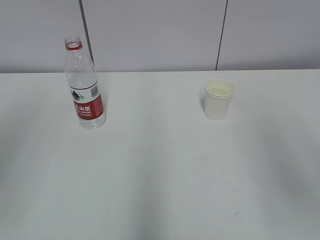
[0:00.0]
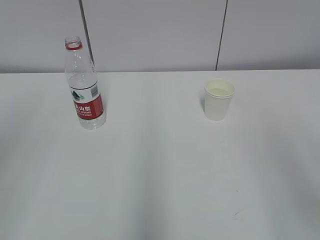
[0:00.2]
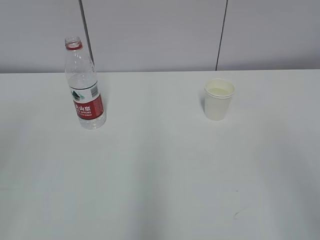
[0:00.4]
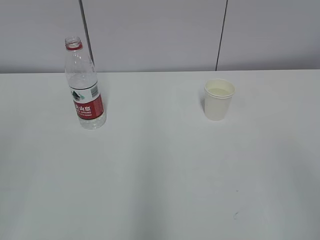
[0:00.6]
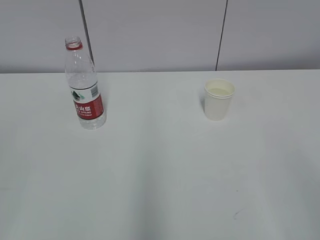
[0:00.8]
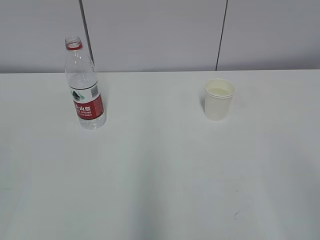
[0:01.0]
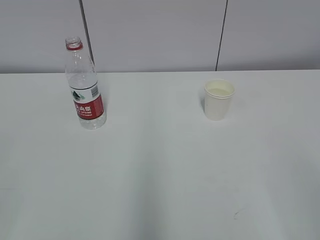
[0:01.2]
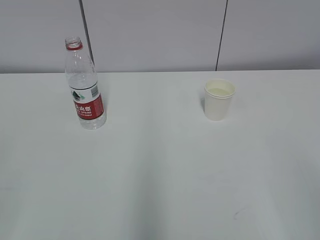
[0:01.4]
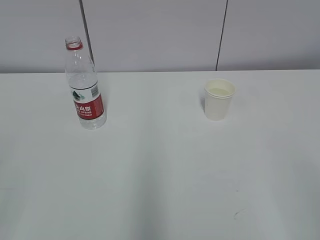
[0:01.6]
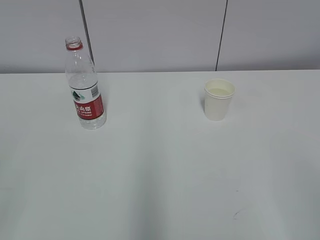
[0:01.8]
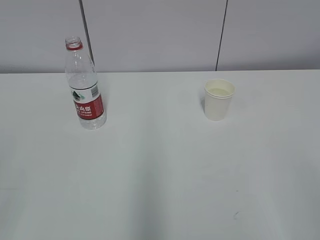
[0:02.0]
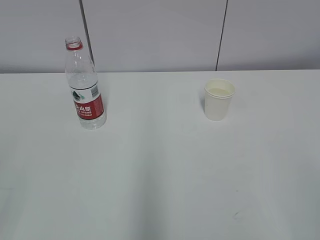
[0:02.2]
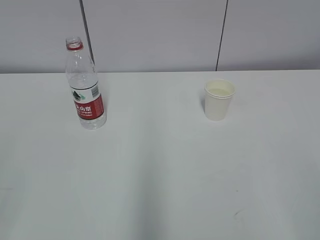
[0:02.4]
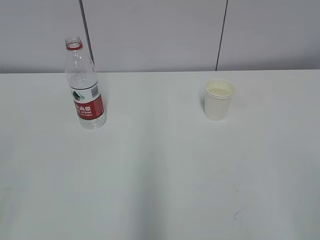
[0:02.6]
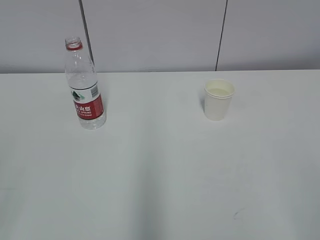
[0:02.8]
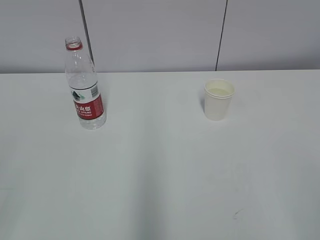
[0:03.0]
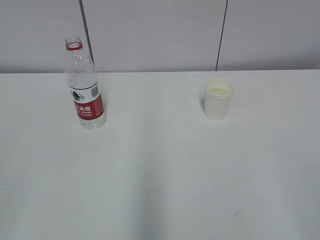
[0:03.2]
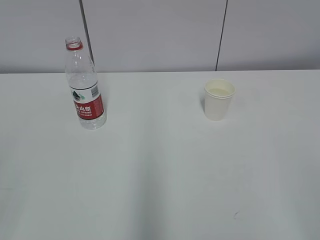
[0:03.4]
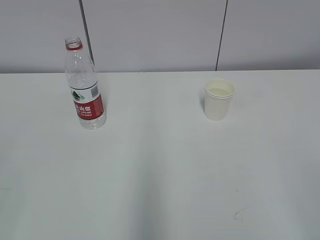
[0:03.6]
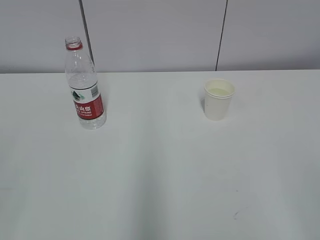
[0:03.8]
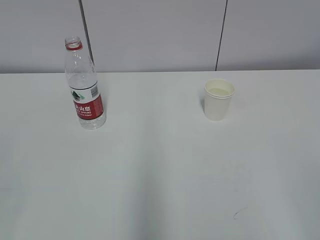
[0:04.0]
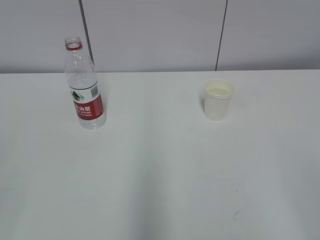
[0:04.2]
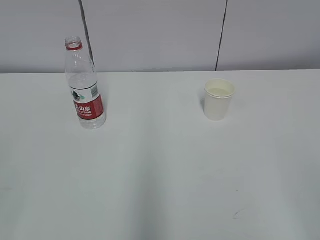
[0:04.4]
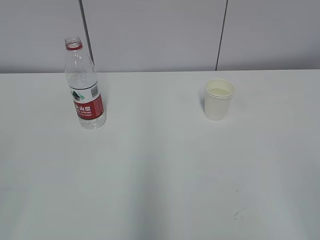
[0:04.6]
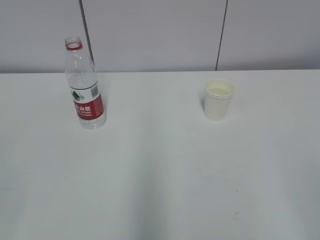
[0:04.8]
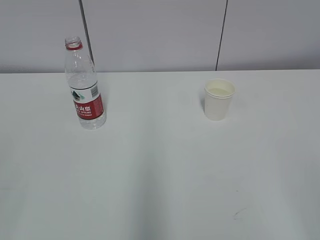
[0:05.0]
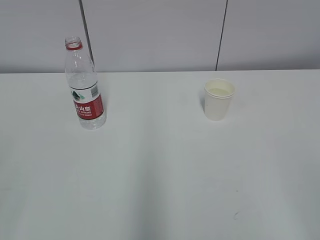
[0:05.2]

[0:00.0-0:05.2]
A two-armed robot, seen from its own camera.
0:03.4 to 0:05.2: Both grippers stay about where they are.

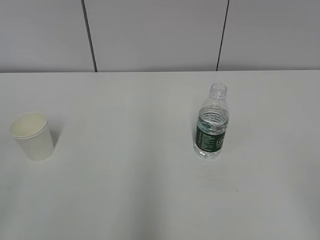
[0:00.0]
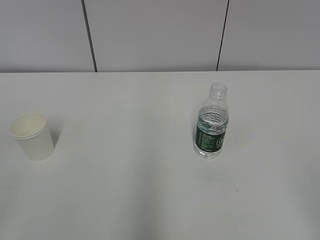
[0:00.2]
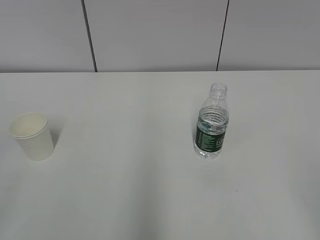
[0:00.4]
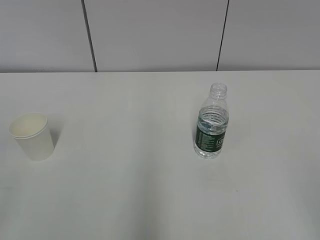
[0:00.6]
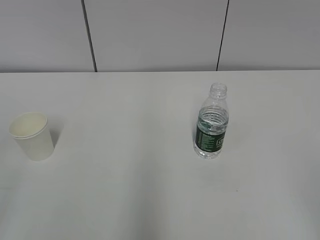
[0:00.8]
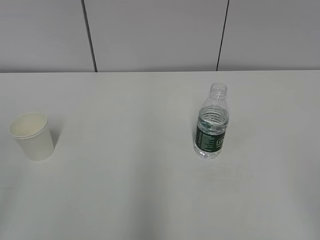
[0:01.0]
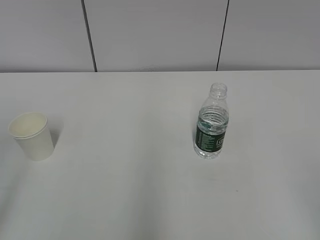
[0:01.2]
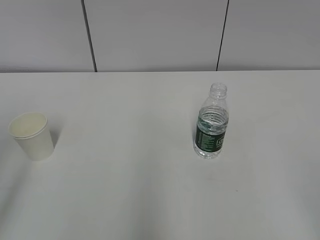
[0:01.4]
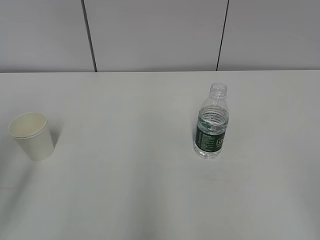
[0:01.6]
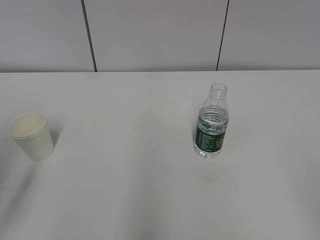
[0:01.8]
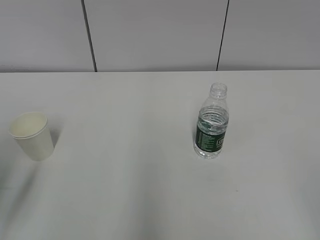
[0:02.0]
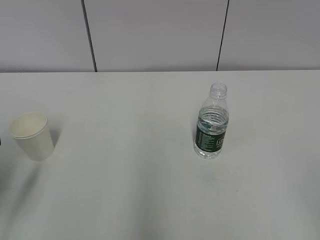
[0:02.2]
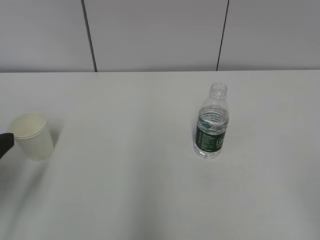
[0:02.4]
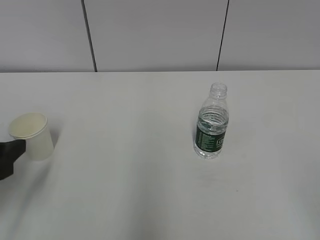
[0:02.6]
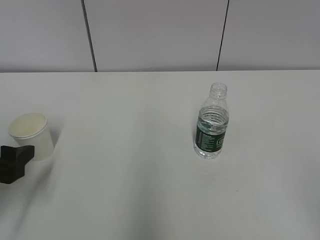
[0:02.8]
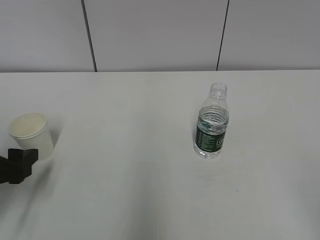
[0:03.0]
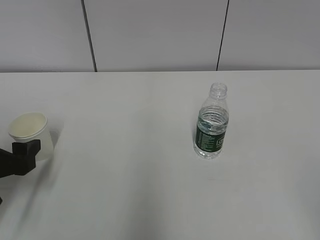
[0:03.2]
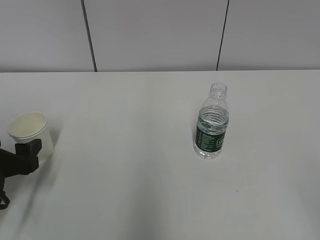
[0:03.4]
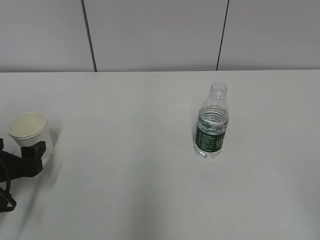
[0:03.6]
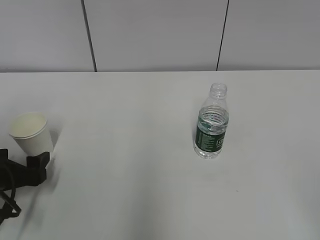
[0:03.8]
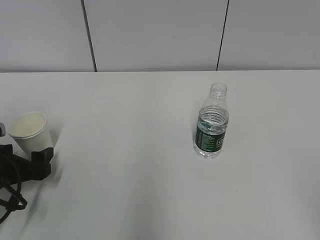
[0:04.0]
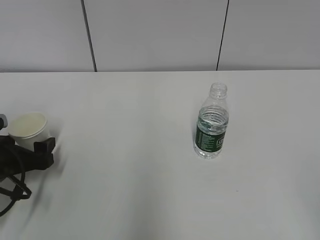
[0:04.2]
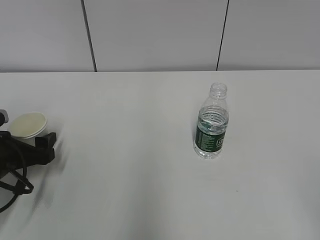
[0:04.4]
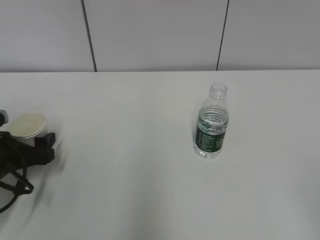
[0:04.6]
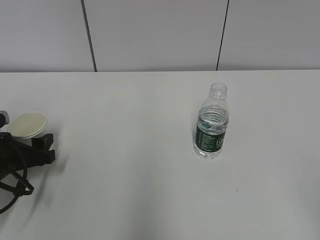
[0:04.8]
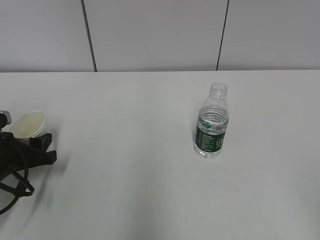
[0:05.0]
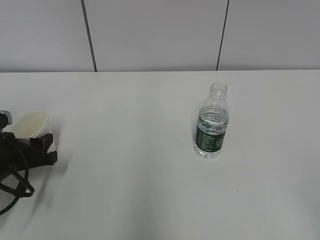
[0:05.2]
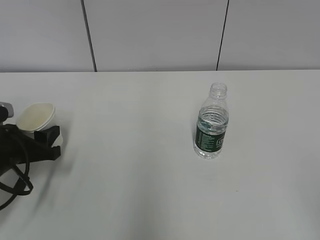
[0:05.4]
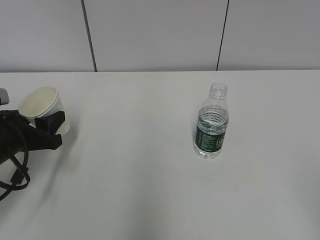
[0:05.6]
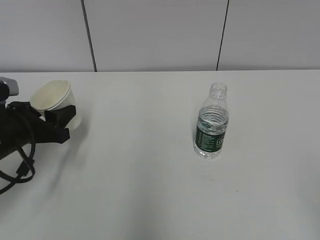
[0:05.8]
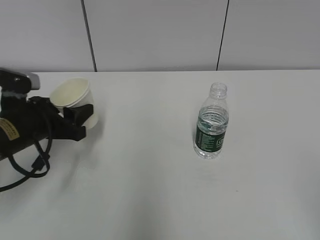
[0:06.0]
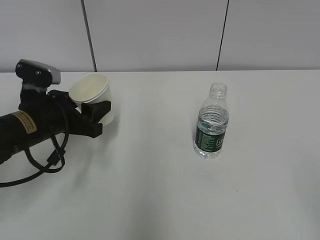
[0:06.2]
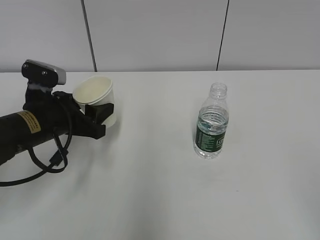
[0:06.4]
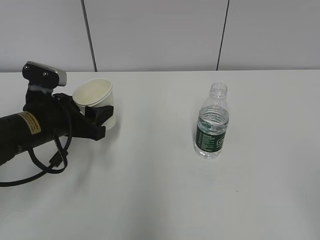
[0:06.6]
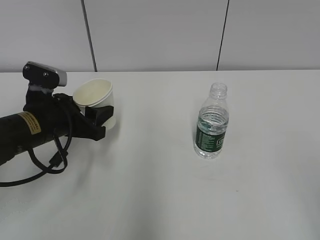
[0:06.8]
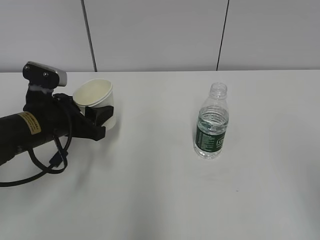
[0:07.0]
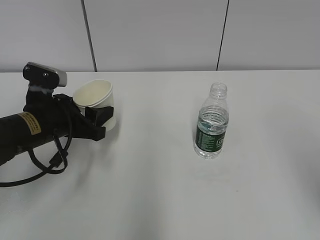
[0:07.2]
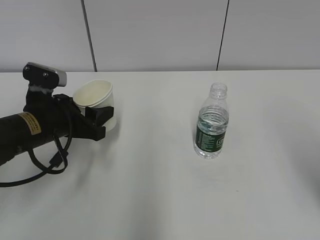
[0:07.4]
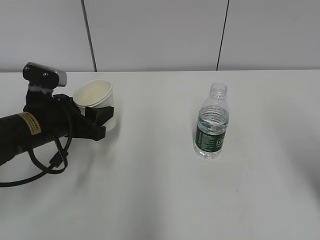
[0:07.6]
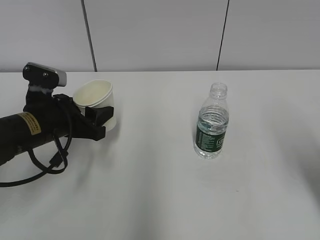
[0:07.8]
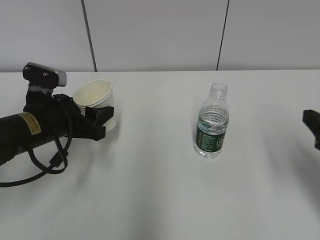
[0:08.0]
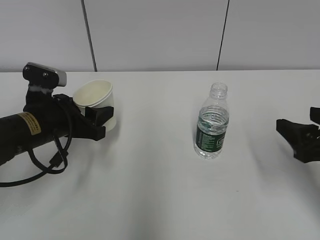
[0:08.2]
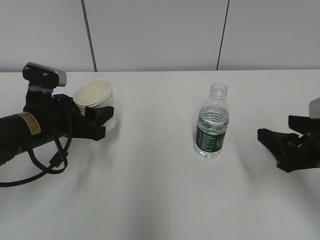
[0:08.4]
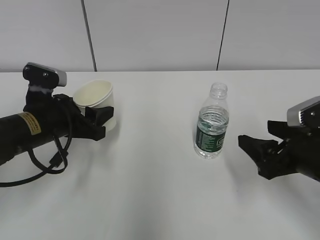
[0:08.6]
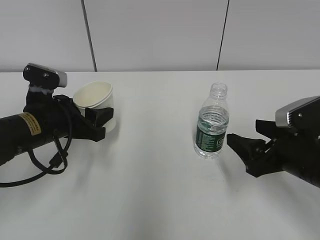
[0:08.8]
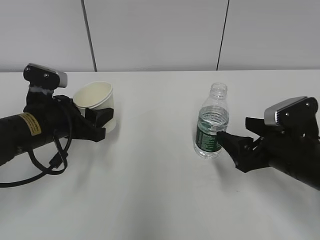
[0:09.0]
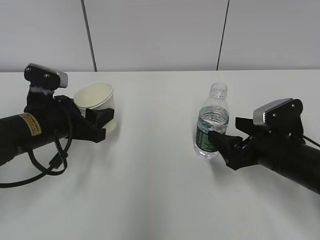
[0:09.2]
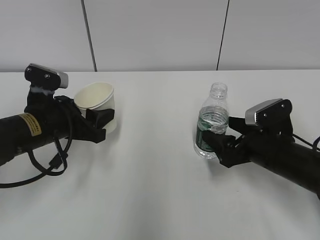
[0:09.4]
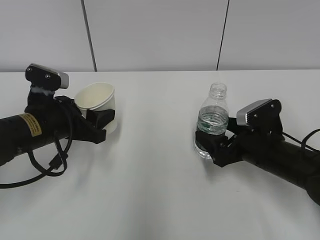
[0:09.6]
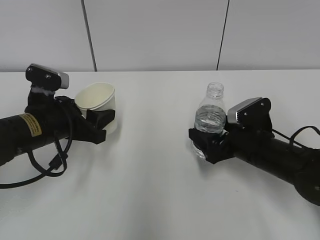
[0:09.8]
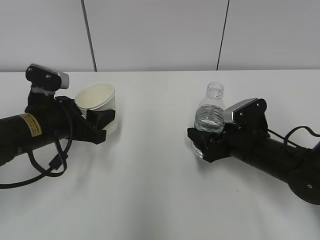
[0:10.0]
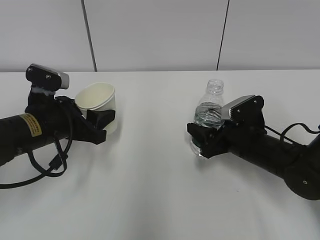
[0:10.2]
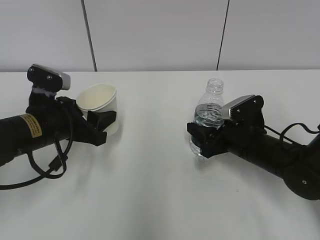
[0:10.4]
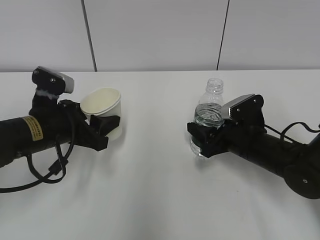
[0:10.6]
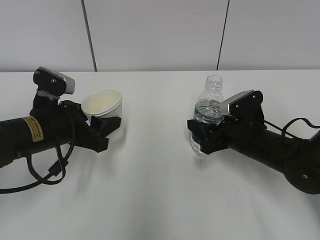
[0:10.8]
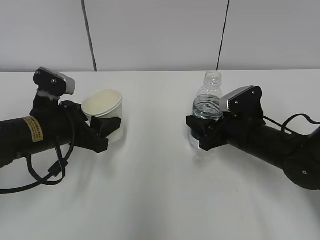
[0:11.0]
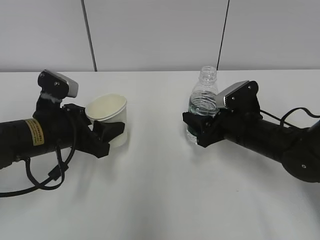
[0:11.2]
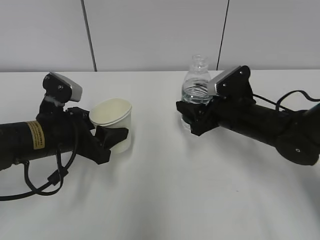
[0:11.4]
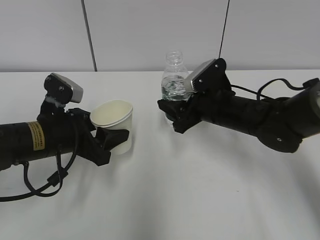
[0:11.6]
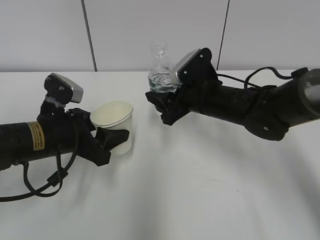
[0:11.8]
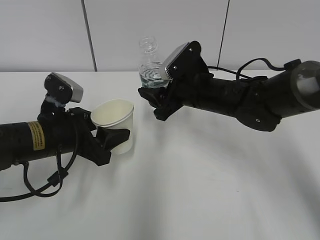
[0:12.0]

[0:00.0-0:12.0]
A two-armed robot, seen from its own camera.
Step, 0:00.0 to 0:04.0: Grab the paper cup with the left hand.
Step, 0:04.2 to 0:08.6: Grab the water bottle with the right hand.
0:01.6 to 0:03.0: The left gripper shifts about 20 cm downward and forward.
0:03.0 to 0:04.4: The left gripper travels forward and downward by some 10 cm.
0:04.4 to 0:06.0: The left gripper is displaced upward and to the right by some 10 cm, and closes up.
0:06.0 to 0:07.6: The right gripper shifts some 15 cm forward.
0:07.6 to 0:09.0: The right gripper moves downward, forward and to the left, about 20 cm.
0:09.0 to 0:10.4: The right gripper moves forward and downward, about 10 cm, and closes its fingers.
0:10.4 to 0:12.0: The right gripper travels upward, to the left and forward by about 15 cm.

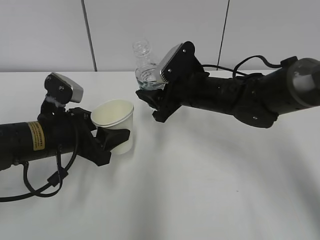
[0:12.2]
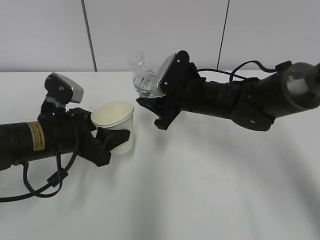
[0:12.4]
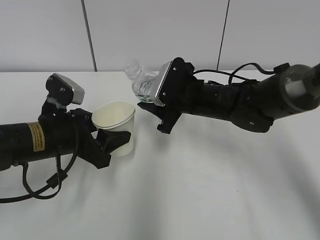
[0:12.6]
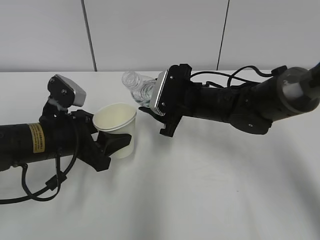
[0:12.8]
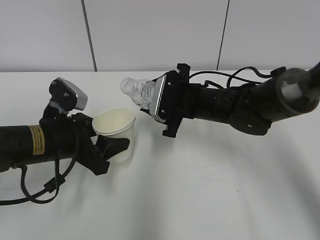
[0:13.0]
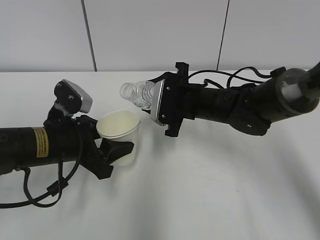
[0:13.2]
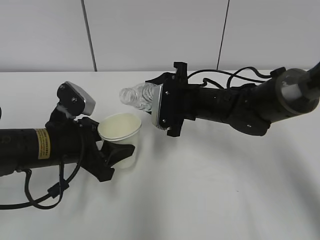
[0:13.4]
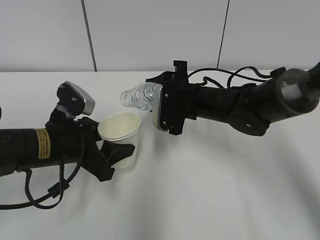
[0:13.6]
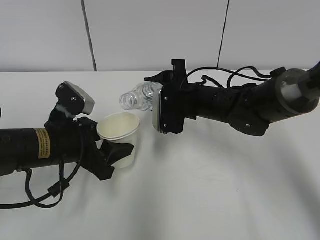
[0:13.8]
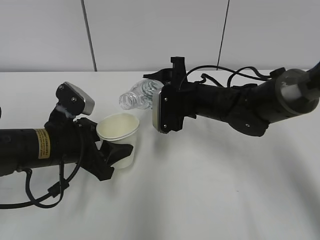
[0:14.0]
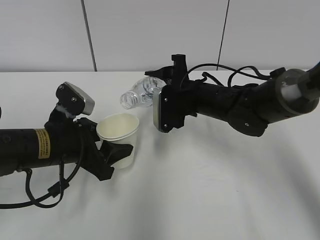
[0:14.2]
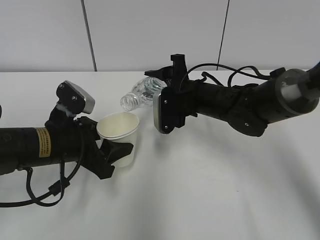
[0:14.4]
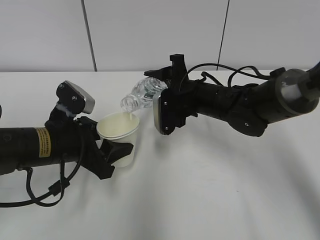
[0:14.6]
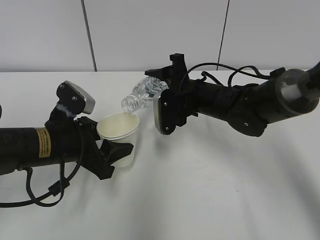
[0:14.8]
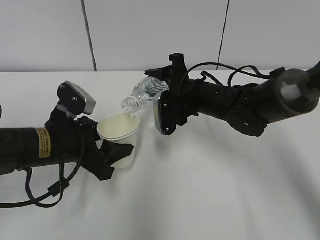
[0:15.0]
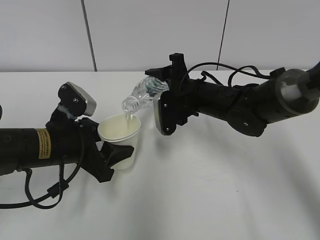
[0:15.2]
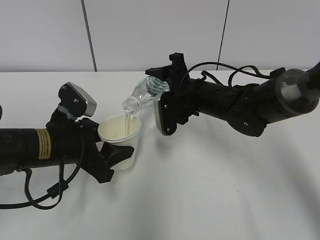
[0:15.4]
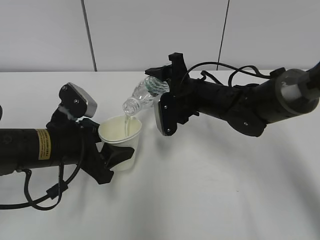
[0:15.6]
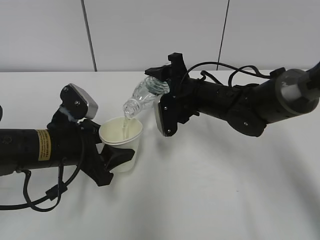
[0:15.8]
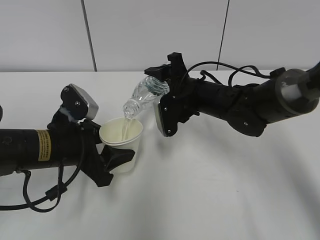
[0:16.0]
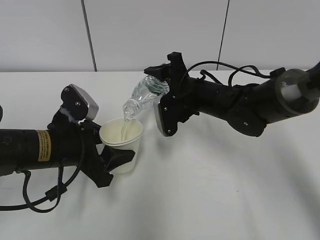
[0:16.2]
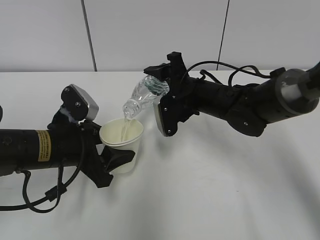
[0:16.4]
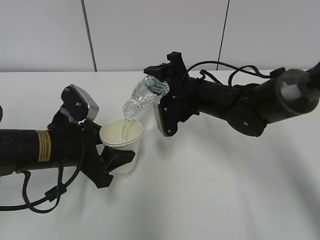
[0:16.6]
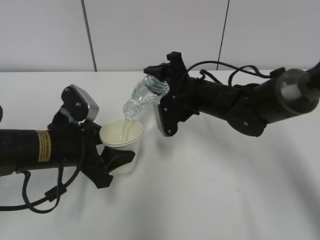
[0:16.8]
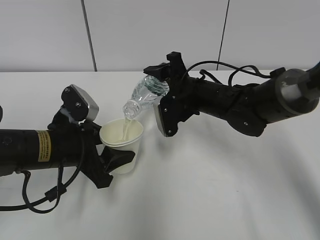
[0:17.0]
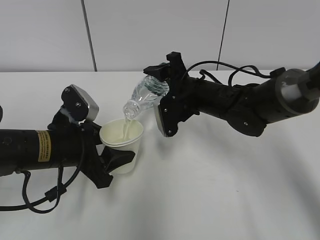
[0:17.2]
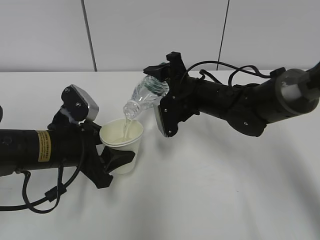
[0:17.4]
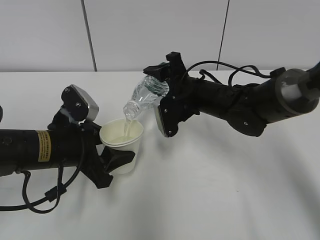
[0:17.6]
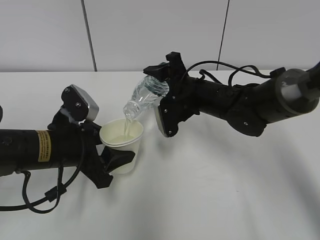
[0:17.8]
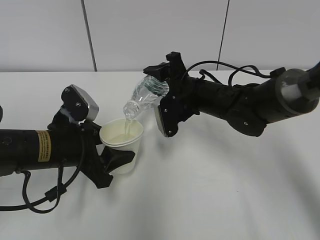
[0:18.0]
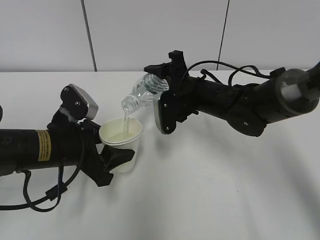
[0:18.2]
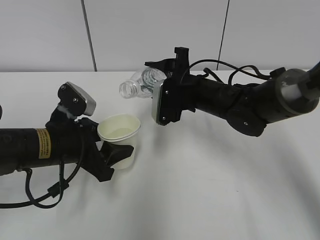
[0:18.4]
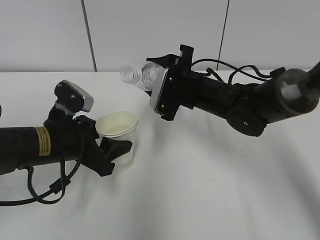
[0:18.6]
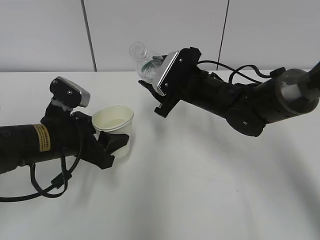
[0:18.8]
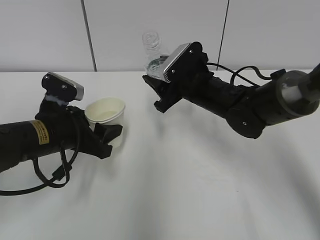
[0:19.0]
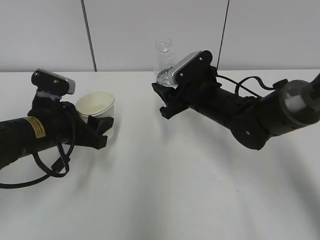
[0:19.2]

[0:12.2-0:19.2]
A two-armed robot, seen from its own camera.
Step, 0:12.2 to 0:15.2: Fill water with the left hand.
Step, 0:12.2 to 0:15.2: Pour water with the right hand.
0:13.6 to 0:15.0: The grippers move only a little.
0:15.0 to 0:16.4: The grippers stay close to where they were, moving slightly.
0:16.4 to 0:17.8: Both grippers stay about where they are.
